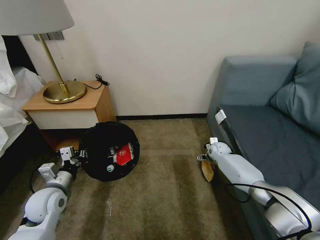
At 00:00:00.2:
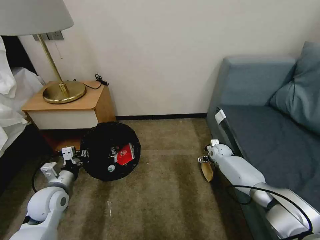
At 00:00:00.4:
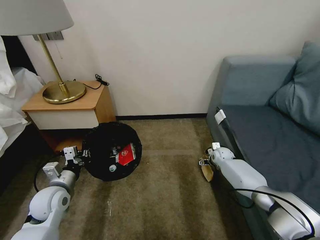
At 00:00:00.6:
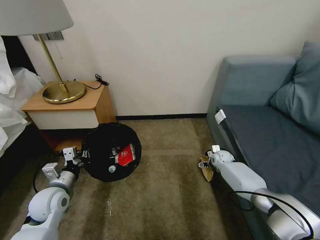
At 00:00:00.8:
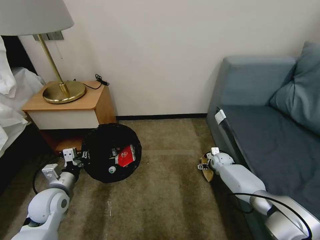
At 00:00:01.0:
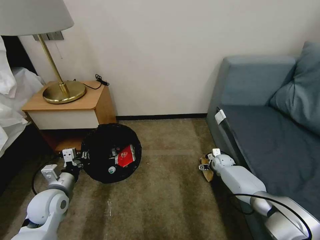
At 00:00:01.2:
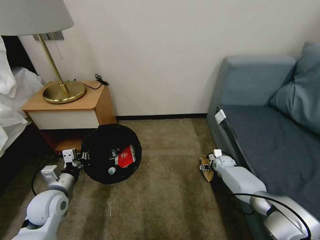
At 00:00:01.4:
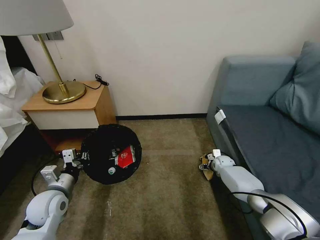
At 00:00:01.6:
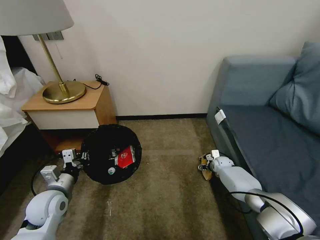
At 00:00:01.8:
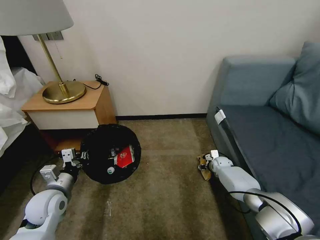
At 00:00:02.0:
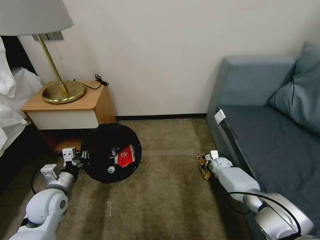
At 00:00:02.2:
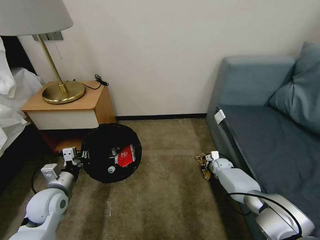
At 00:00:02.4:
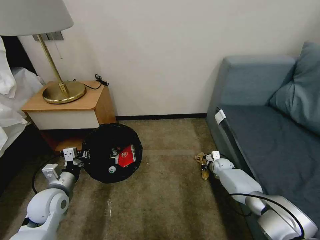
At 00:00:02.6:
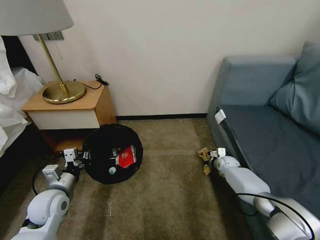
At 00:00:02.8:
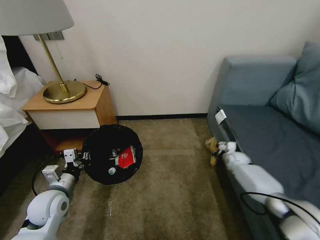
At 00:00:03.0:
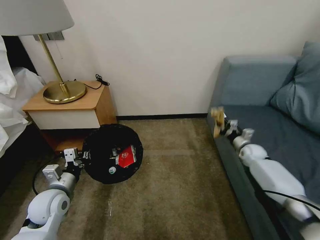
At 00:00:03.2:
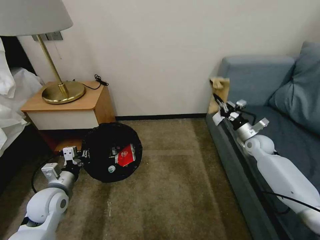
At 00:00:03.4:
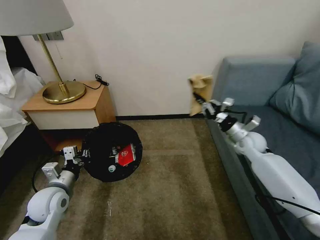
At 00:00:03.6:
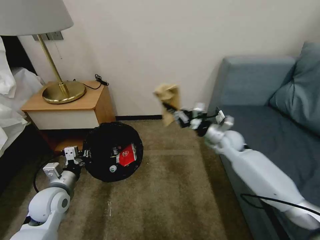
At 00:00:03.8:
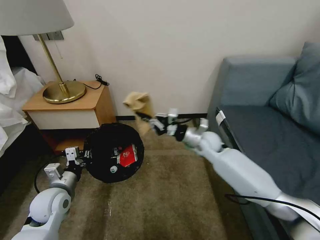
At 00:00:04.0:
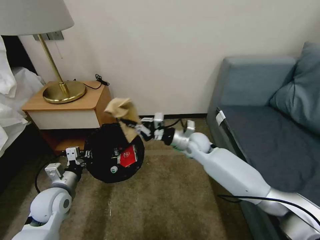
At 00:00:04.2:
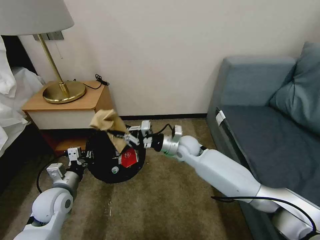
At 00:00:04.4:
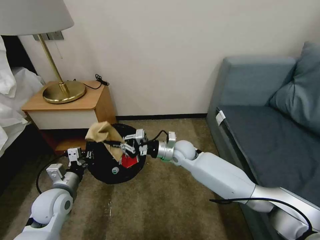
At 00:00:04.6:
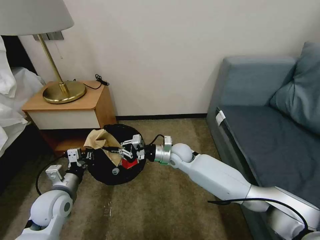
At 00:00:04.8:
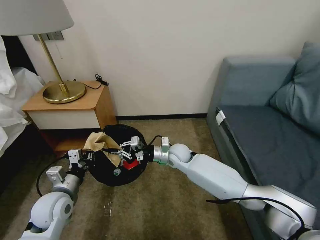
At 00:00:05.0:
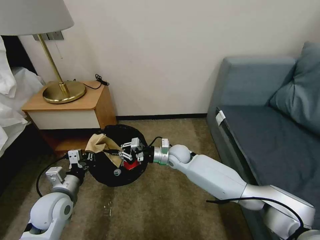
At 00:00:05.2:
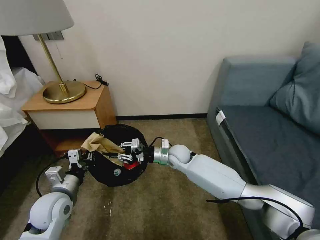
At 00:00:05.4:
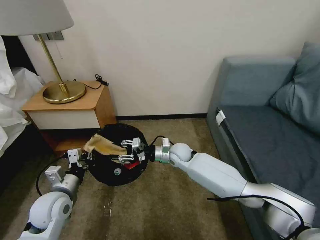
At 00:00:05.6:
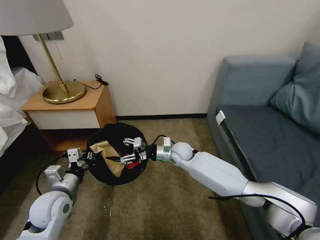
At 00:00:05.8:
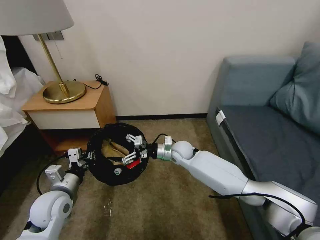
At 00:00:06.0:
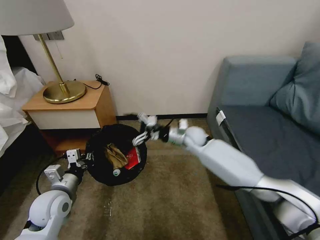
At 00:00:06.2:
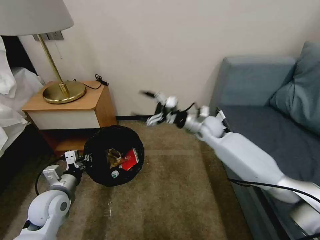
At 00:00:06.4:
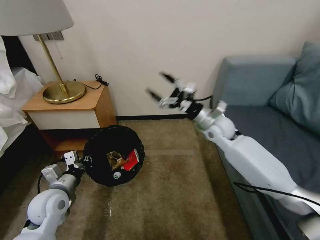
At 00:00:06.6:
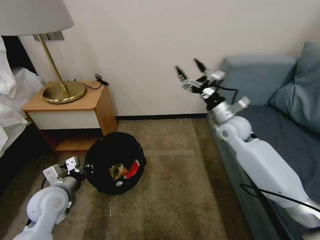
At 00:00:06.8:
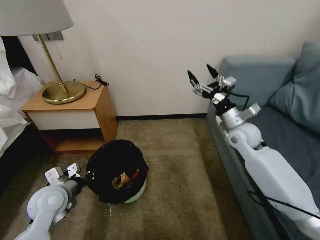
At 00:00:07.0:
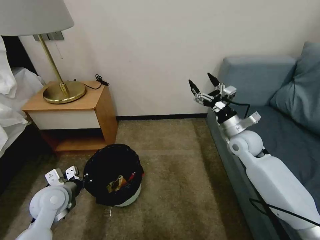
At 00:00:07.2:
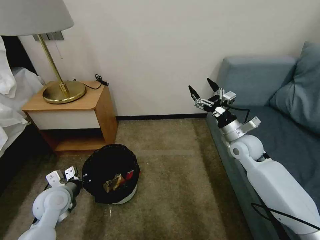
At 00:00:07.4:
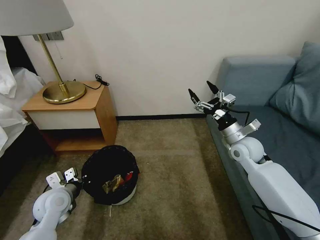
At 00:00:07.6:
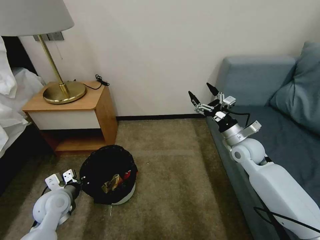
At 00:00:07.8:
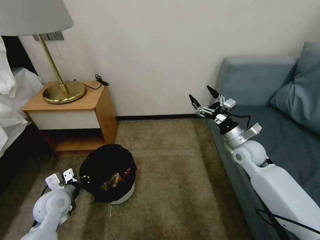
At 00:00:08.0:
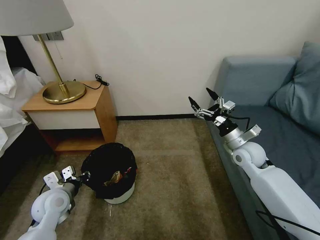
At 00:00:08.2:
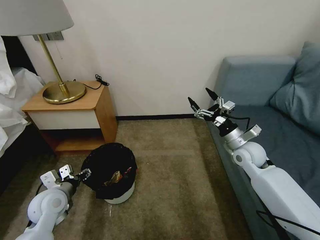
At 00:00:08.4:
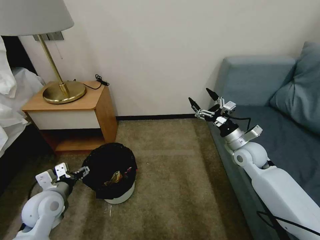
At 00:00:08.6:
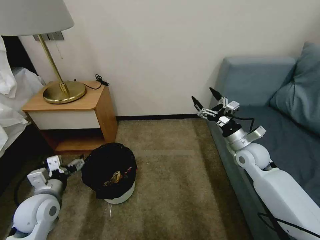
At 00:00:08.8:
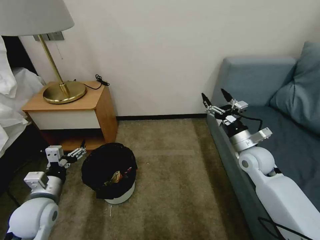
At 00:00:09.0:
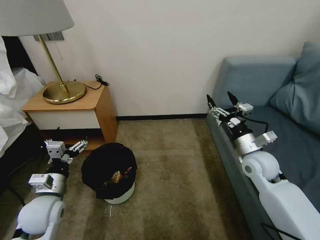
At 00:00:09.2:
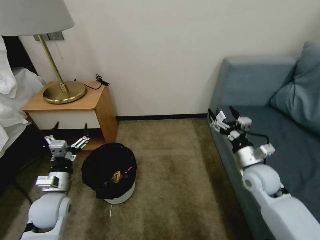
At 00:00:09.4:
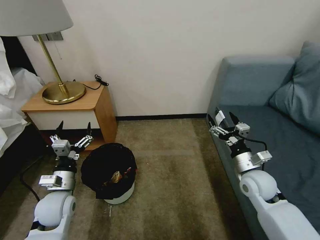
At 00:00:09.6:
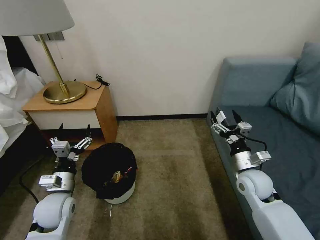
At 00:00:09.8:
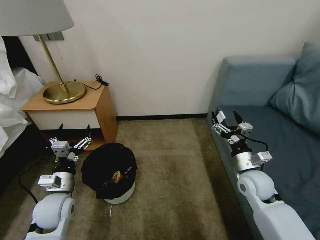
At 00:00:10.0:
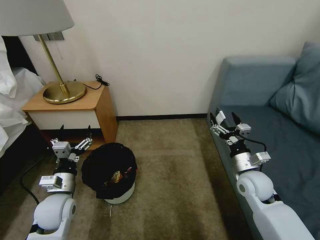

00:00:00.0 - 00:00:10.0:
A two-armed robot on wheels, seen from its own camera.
Task of the whole recording: Pick up the trash bin, then pick up the garbage on the floor and place it into the trash bin.
00:00:00.0 - 00:00:01.4: The right gripper travels downward by approximately 5 cm.
00:00:01.4 - 00:00:02.8: The right gripper goes approximately 5 cm to the right, and closes.
00:00:02.8 - 00:00:04.2: The right gripper heads to the left and upward, covering some 35 cm.
00:00:04.2 - 00:00:05.8: The right gripper moves downward, some 5 cm, and opens up.
00:00:05.8 - 00:00:07.2: The right gripper goes roughly 25 cm to the right and upward.
00:00:07.2 - 00:00:08.6: The left gripper moves about 5 cm, and opens its fingers.
00:00:08.6 - 00:00:10.0: The right gripper heads backward, covering some 10 cm.
